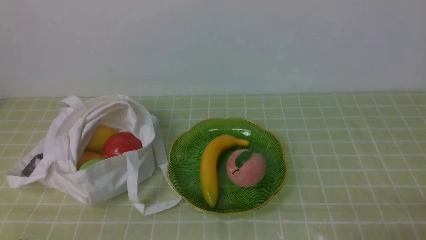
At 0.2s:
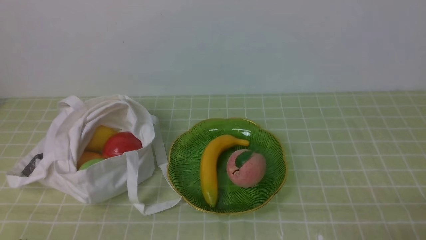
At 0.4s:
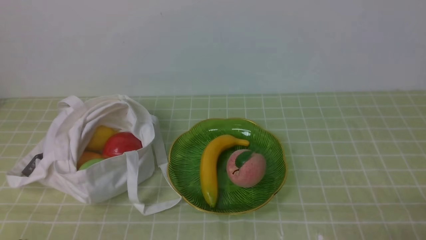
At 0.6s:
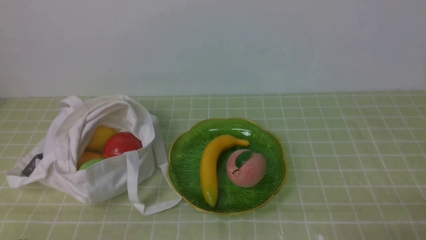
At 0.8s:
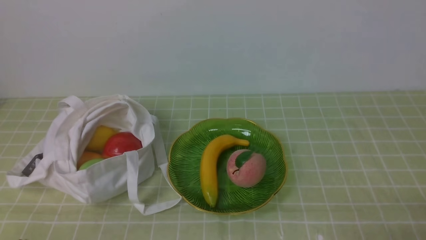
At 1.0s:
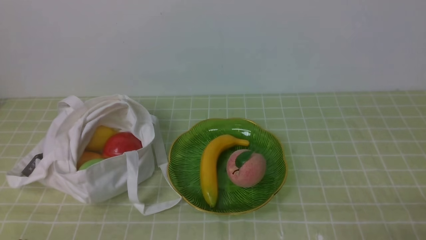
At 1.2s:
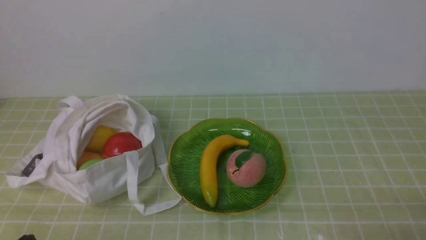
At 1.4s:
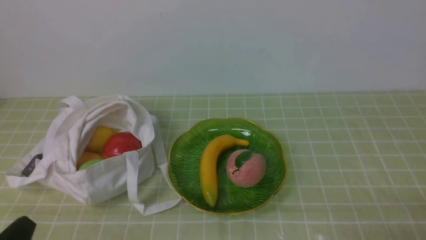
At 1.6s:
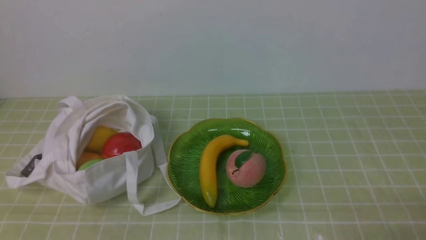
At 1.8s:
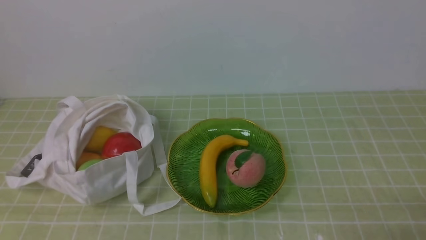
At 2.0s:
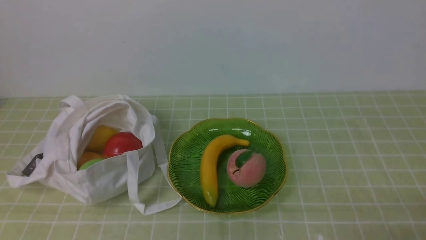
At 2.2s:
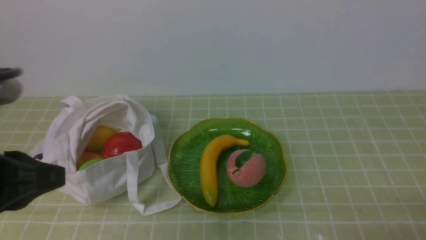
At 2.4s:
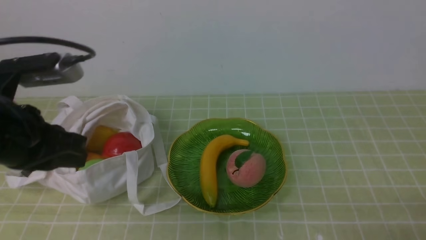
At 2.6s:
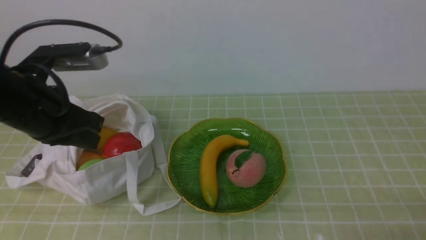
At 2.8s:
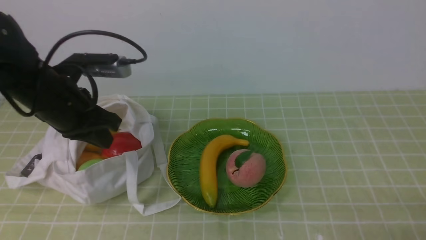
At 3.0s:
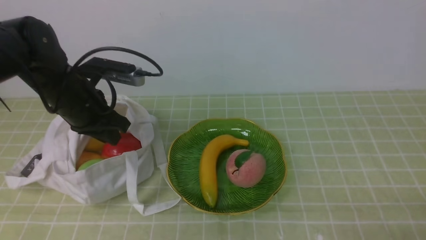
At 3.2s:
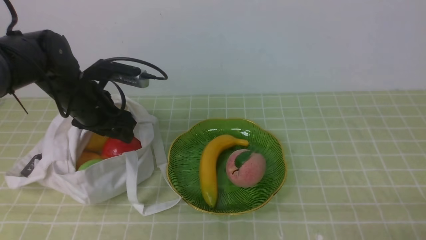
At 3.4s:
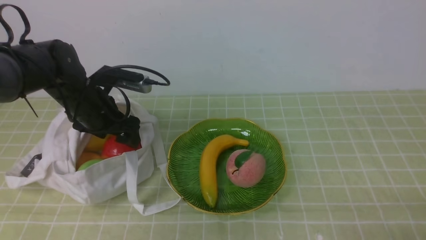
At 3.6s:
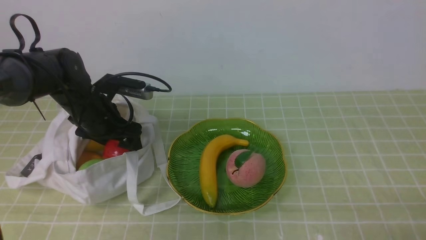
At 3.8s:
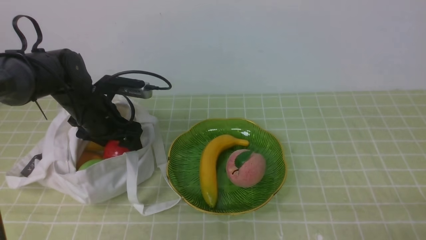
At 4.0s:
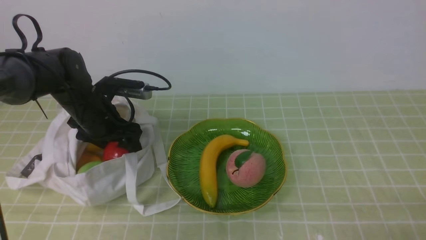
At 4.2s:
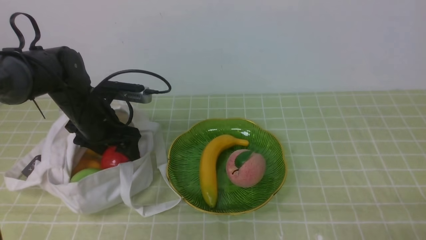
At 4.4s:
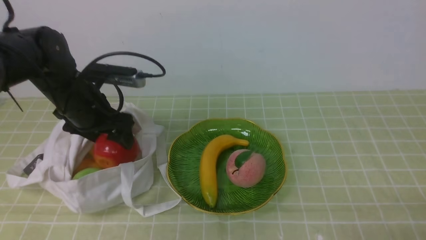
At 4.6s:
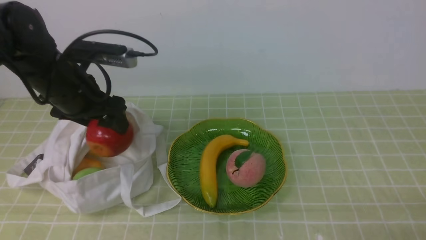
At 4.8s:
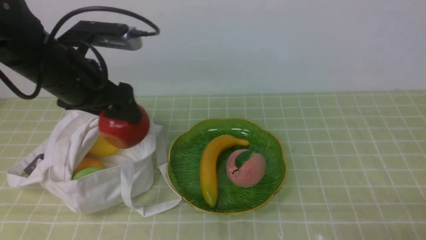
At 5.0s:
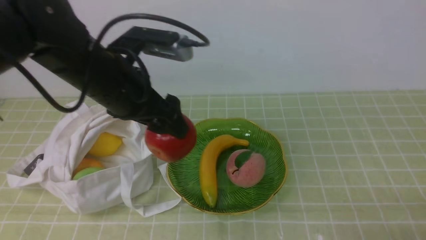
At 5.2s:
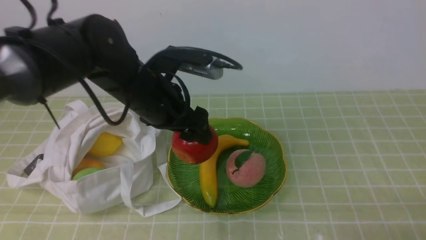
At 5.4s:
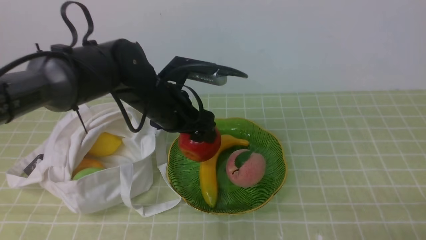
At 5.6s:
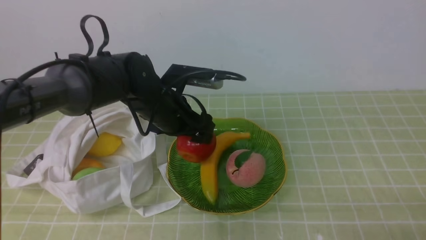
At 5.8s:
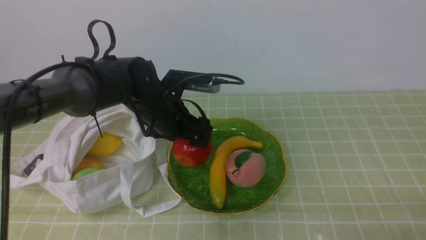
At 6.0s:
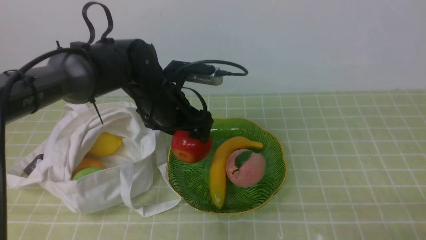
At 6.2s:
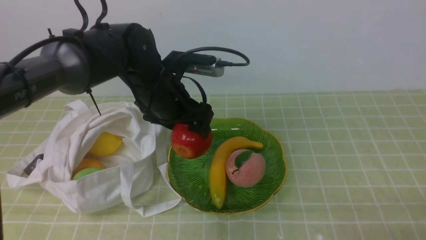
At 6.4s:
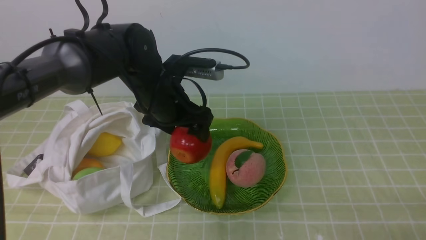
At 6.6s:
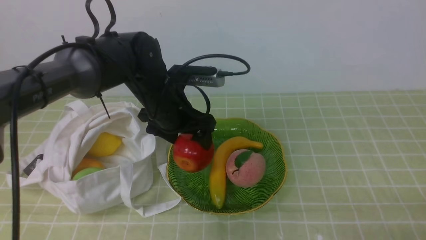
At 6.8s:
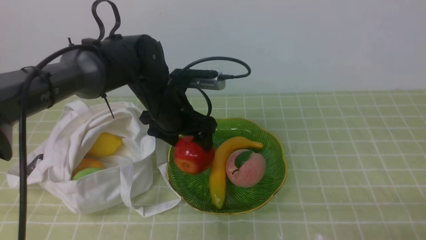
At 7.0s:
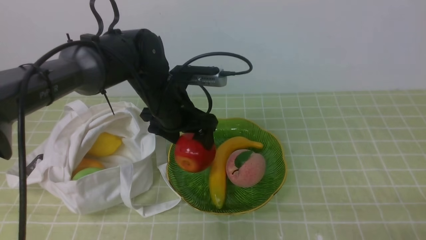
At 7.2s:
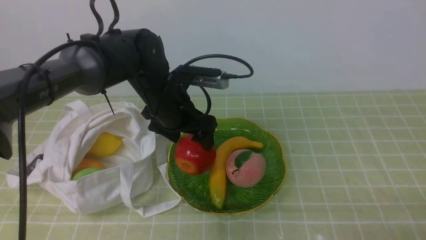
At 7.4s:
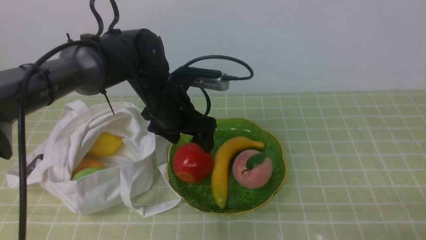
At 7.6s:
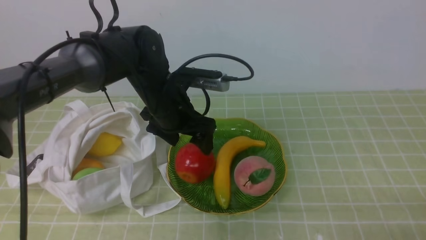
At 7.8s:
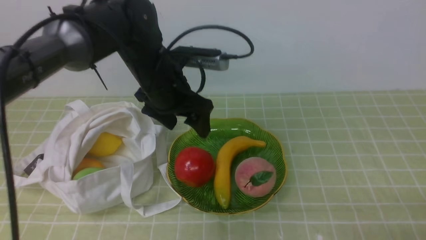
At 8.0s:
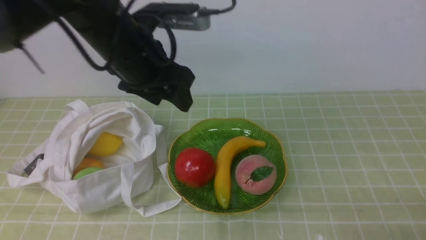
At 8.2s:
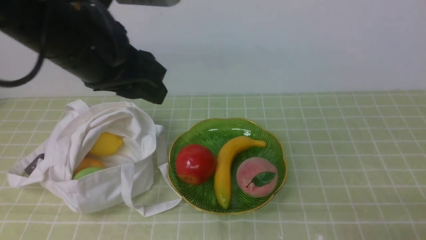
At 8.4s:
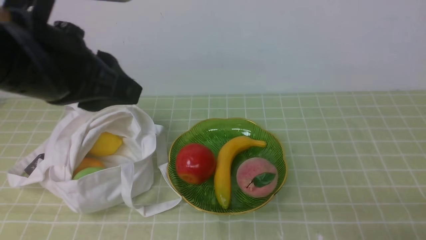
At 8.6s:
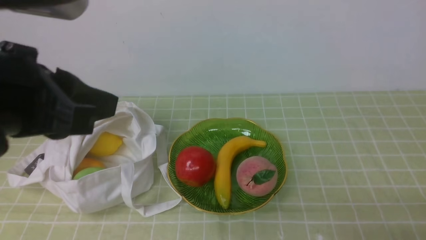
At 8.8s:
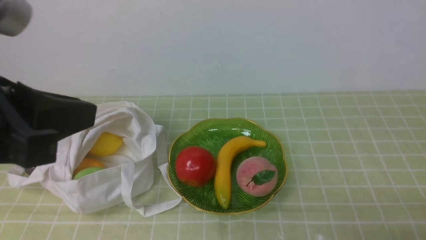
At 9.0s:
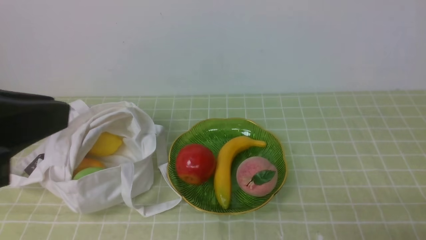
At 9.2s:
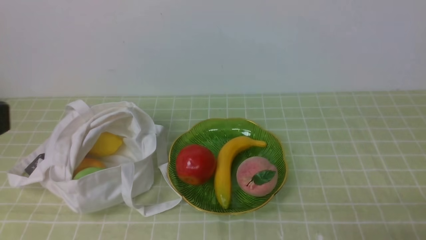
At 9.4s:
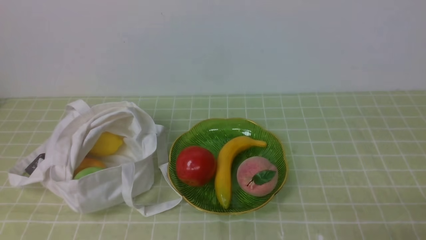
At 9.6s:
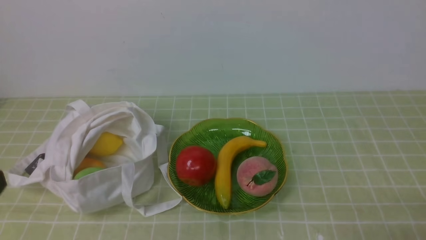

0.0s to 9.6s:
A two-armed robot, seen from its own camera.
Step, 0.0s to 4.4s: use the left arm to grab an apple from the bag.
Step, 4.6s to 7.4s: use the left arm to put the apple into the empty plate on the right.
1.6s to 3.2s: The left gripper travels forward by some 30 cm, and opens its fingers.
3.2s to 4.8s: The left gripper heads upward, covering about 5 cm, and opens its fingers.
4.8s to 6.4s: The left gripper moves to the right and downward, approximately 10 cm.
6.4s to 8.0s: The left gripper is displaced upward by about 10 cm.
8.0s to 9.6s: The left gripper travels backward and to the left by roughly 30 cm, and closes.

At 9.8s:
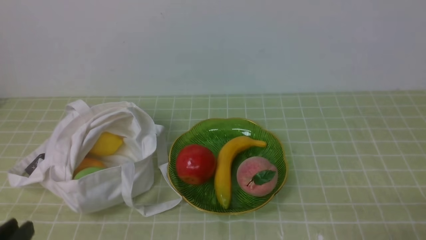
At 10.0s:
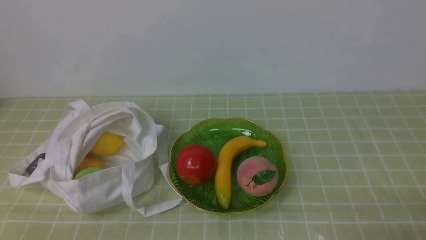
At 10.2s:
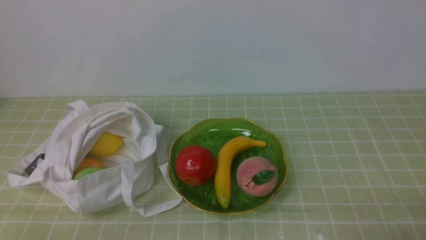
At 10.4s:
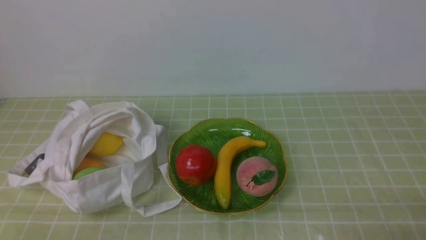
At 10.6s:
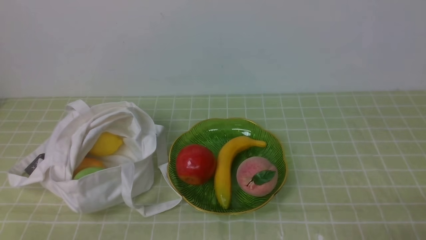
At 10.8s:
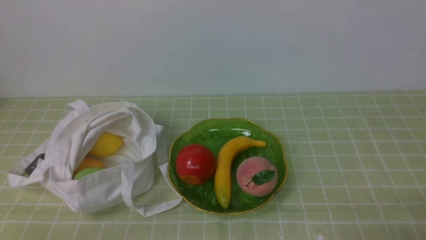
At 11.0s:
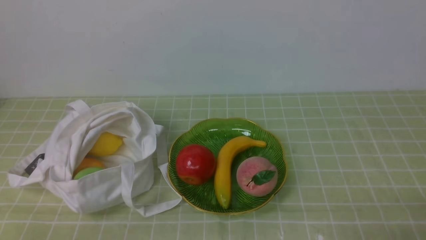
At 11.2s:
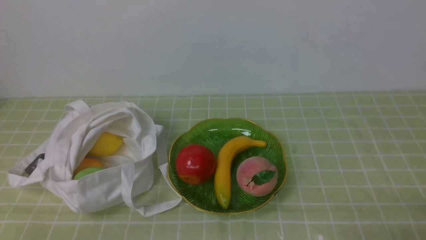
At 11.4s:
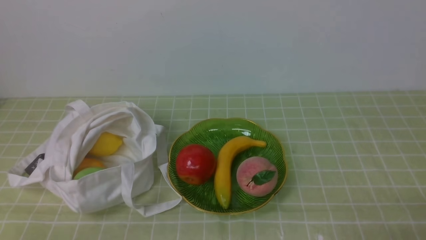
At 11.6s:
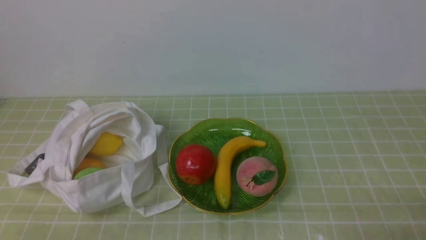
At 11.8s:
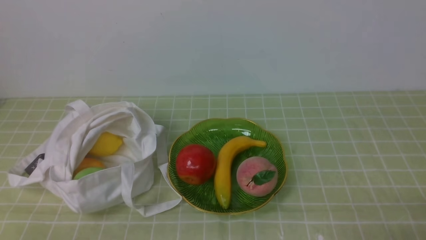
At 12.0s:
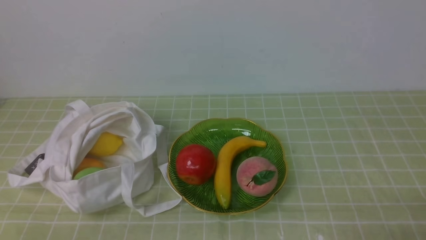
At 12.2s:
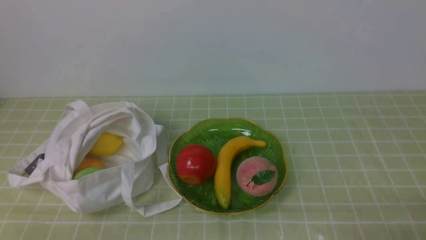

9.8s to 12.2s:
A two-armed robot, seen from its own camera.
11.0s to 12.2s: Both grippers stay about where they are.

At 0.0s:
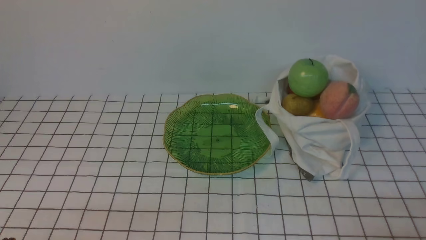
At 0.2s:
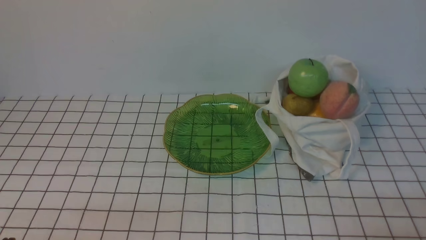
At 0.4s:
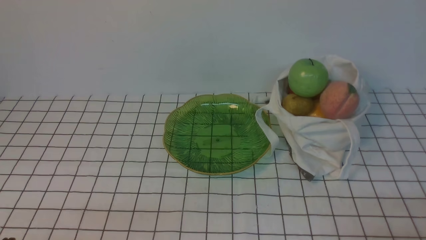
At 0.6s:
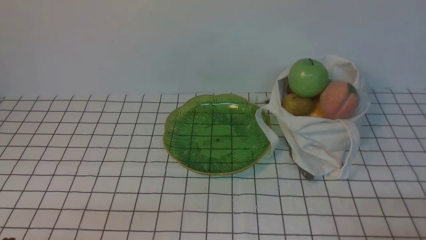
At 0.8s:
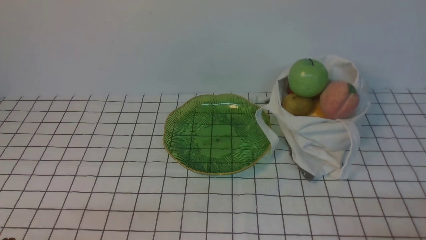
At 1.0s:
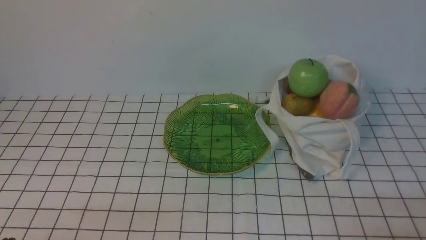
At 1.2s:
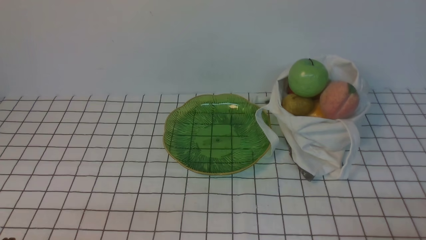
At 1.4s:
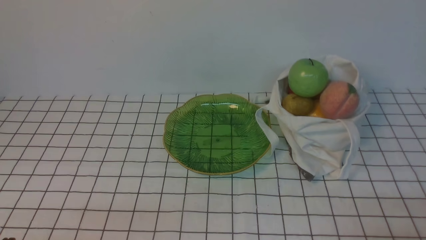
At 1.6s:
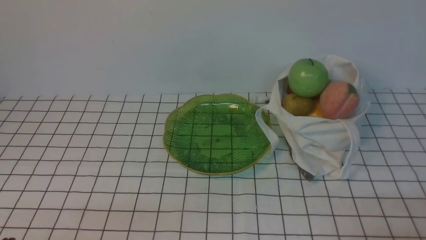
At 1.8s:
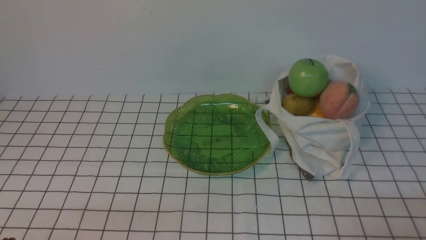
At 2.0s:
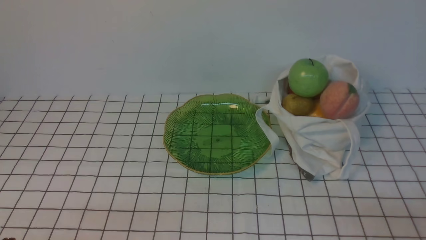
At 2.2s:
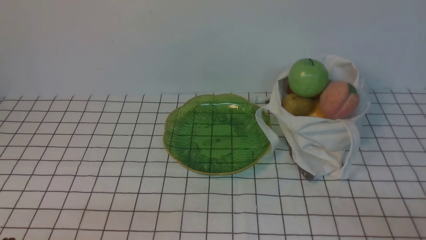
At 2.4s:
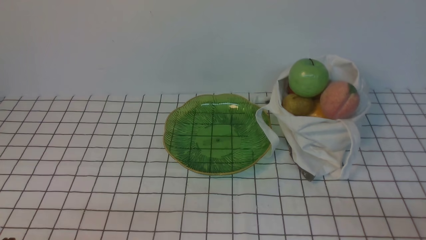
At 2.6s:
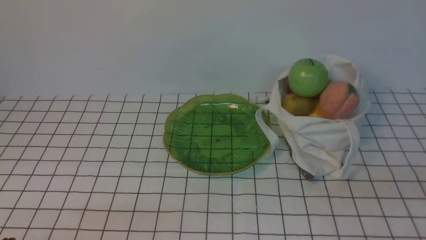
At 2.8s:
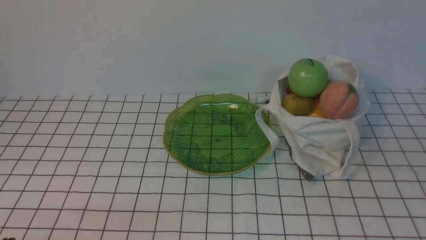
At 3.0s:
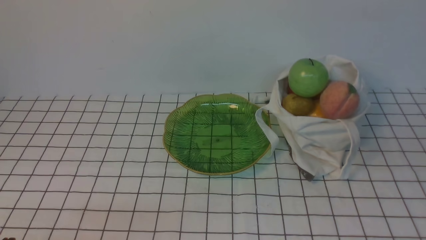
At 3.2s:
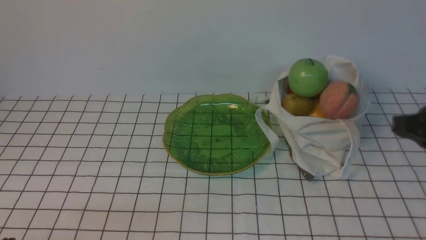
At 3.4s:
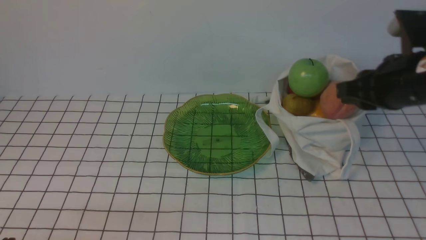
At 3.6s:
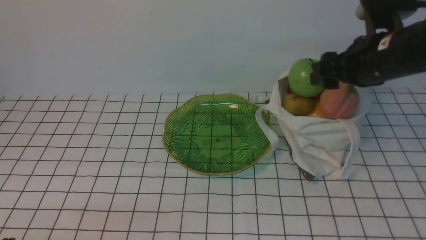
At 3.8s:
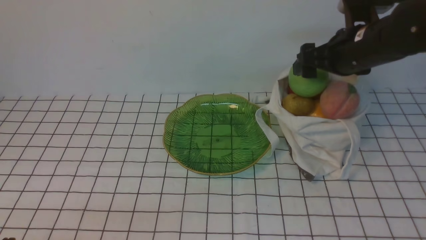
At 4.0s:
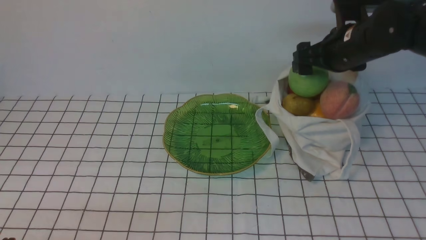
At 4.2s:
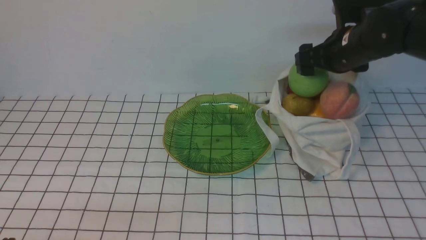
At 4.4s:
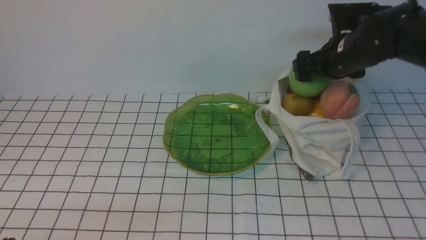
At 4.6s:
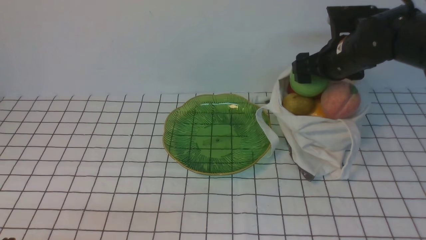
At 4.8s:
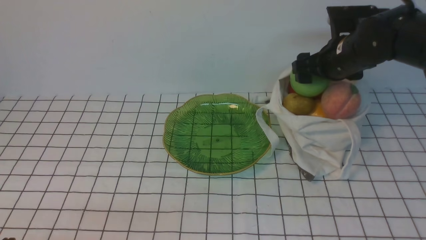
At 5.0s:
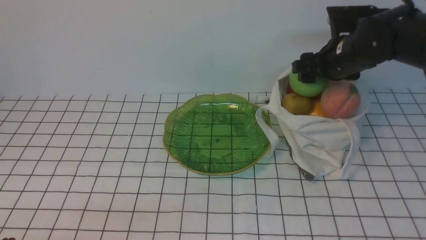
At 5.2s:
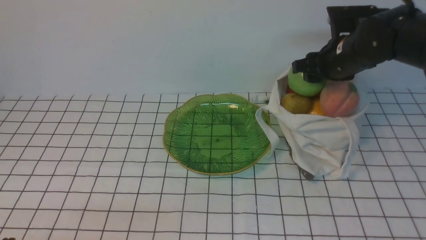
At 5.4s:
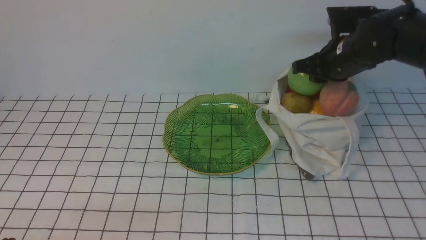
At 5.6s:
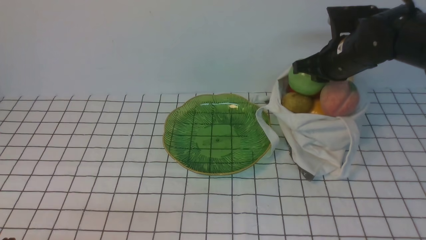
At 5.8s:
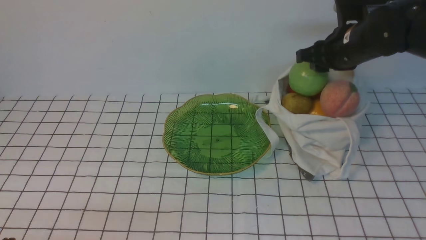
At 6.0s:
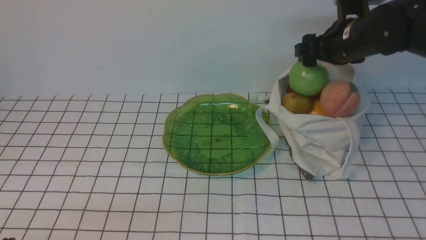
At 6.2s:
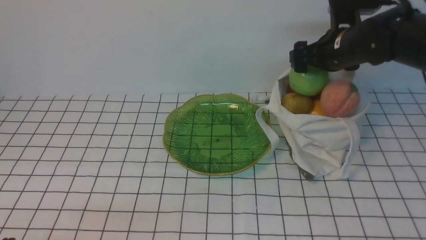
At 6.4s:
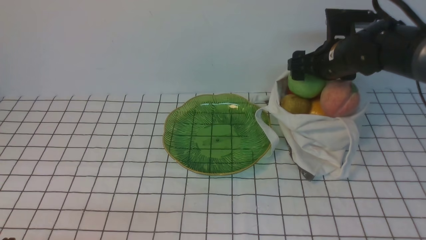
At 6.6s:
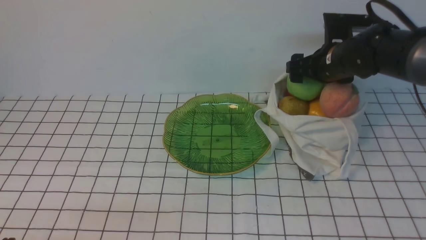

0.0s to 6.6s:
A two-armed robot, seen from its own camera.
1.6s to 3.2s: The right gripper goes roughly 20 cm upward and forward.
3.2s to 5.0s: The right gripper goes some 25 cm forward, and opens up.
5.0s to 6.6s: The right gripper closes, then reopens.
